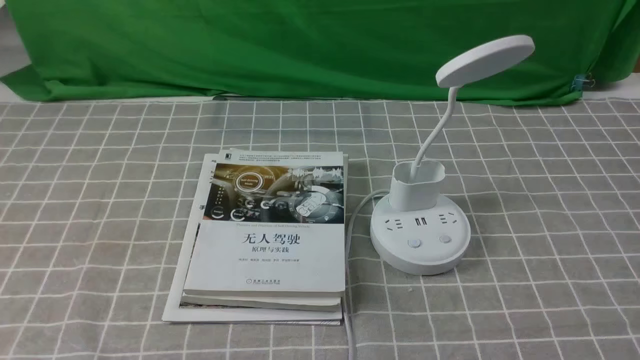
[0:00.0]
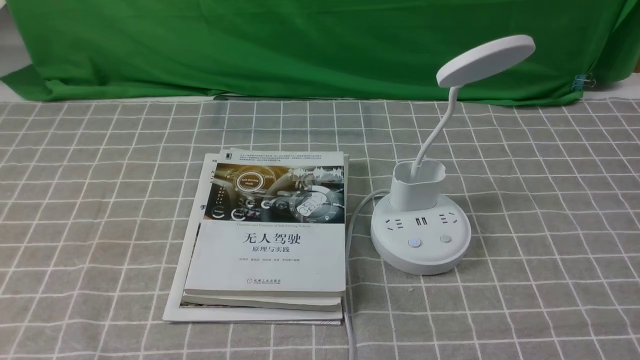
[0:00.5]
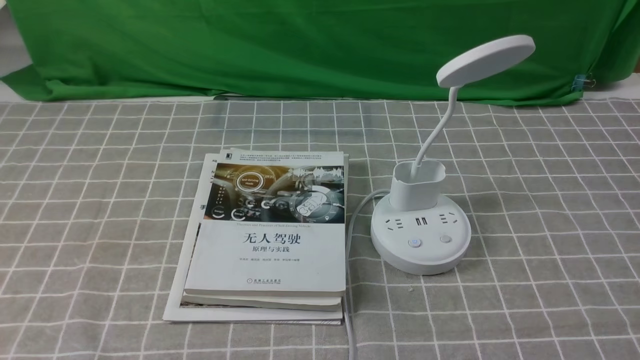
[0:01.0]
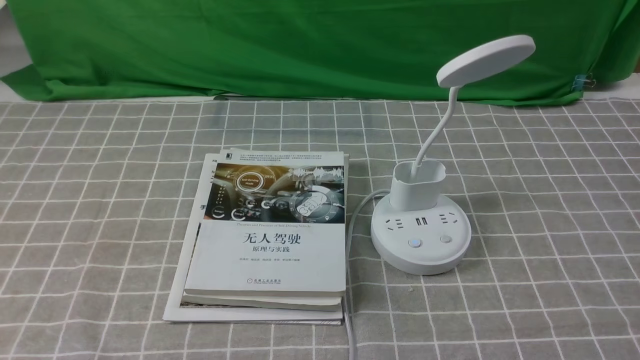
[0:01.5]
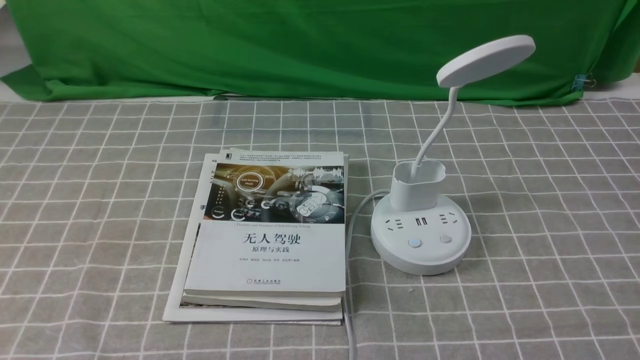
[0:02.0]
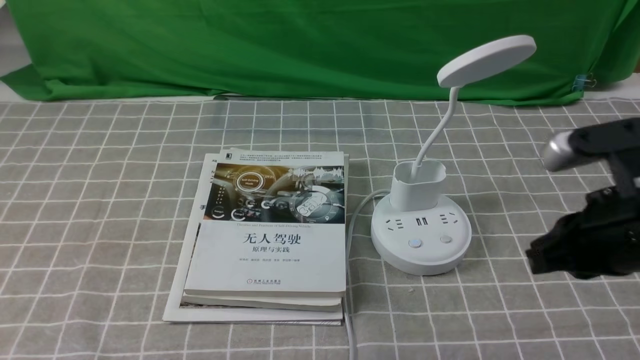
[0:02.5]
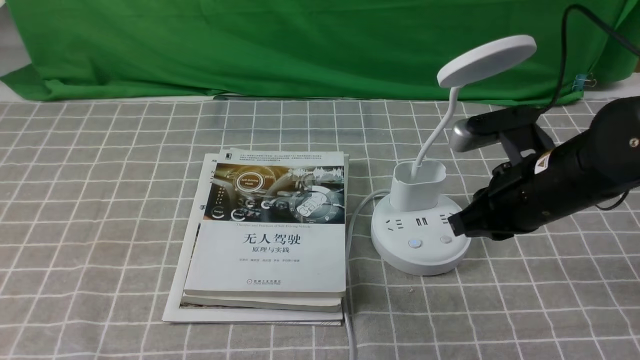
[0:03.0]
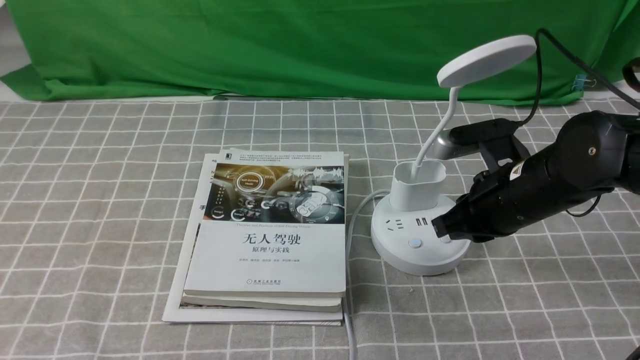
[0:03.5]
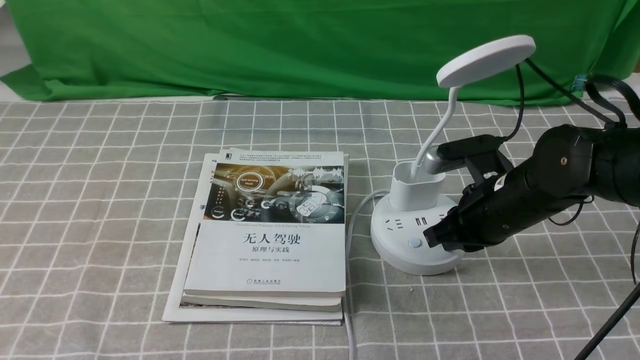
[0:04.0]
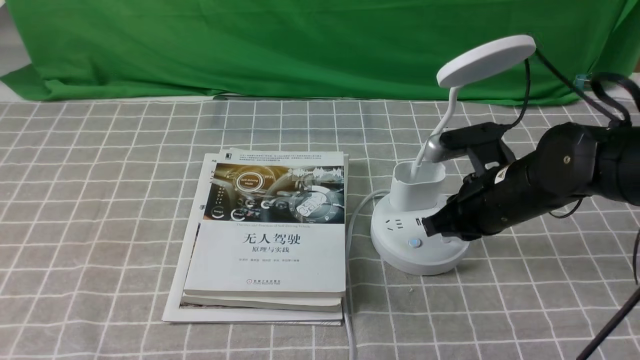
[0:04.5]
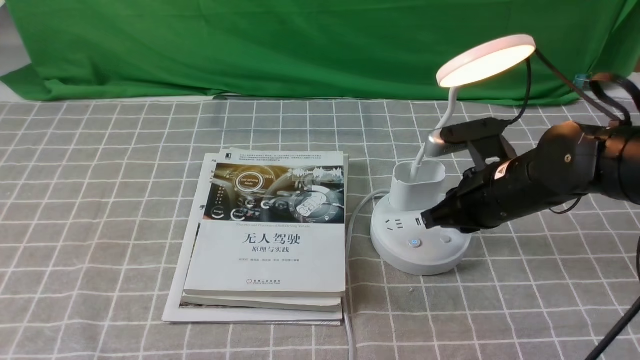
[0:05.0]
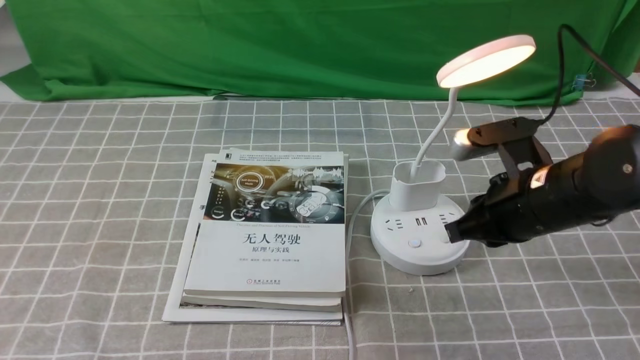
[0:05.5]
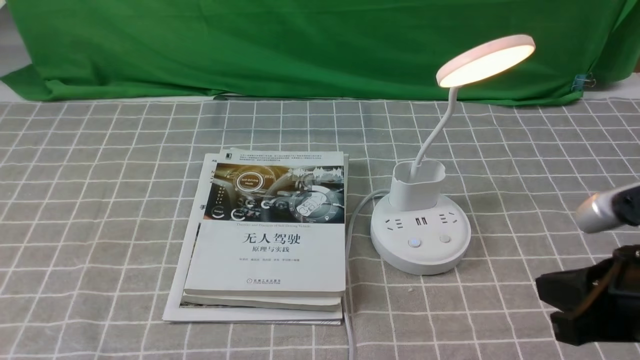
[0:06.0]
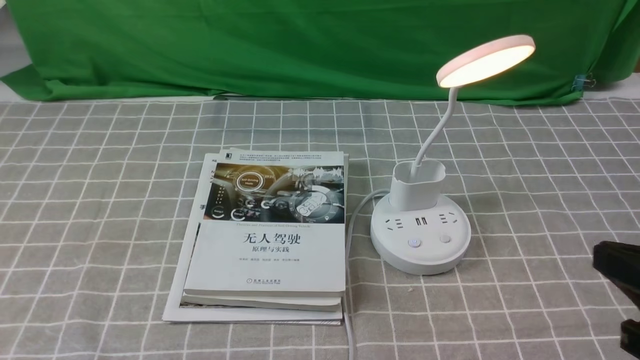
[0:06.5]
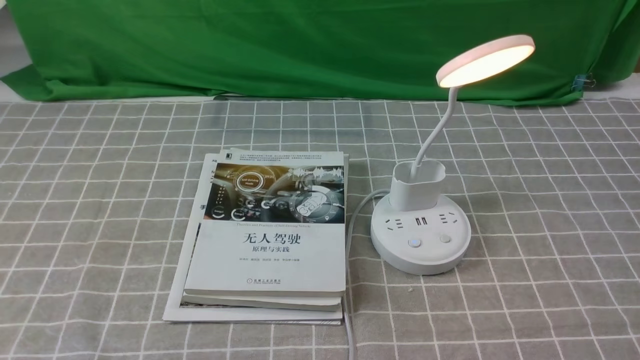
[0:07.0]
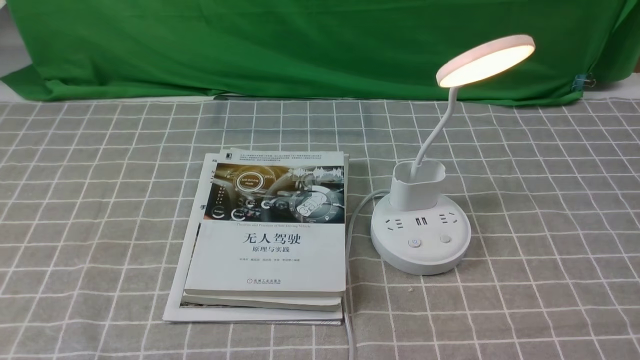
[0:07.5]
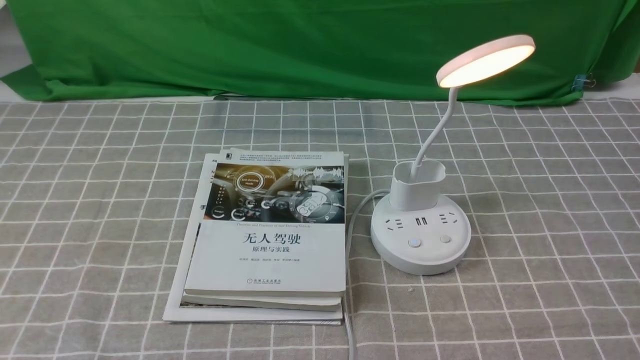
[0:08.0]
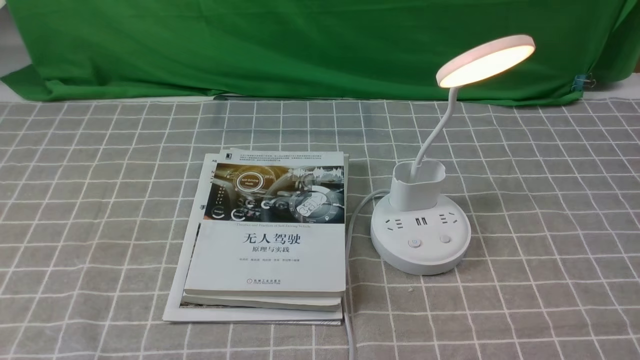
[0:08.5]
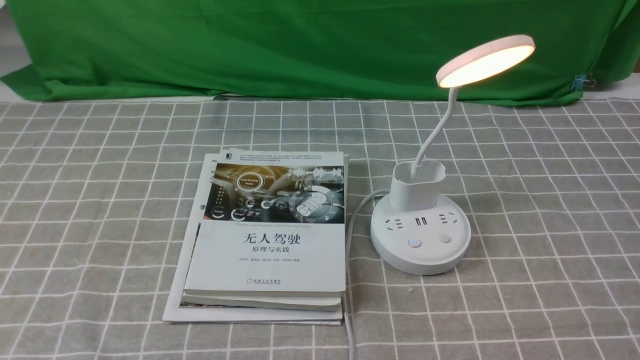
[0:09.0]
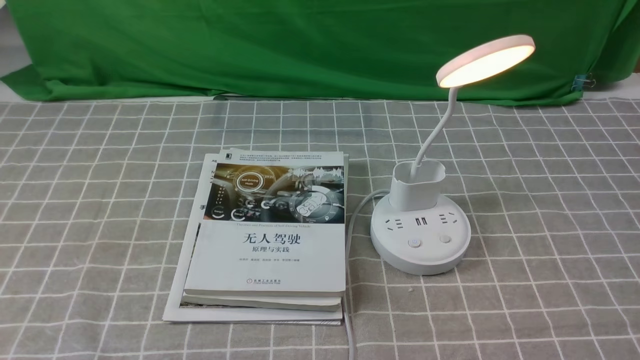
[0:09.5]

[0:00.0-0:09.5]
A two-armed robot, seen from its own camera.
Step, 0:00.0 to 0:05.0: use the right arm to press the button switch on the lamp holder.
0:02.0 to 0:04.0: The right gripper goes some 25 cm forward and to the left.
0:04.0 to 0:05.5: The right gripper ends up about 5 cm from where it was.
0:05.5 to 0:07.5: The right gripper goes about 25 cm backward and to the right.
